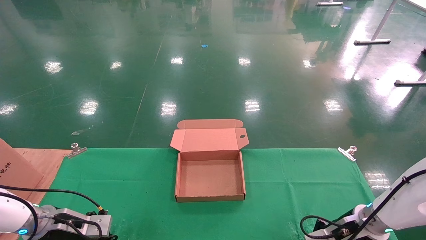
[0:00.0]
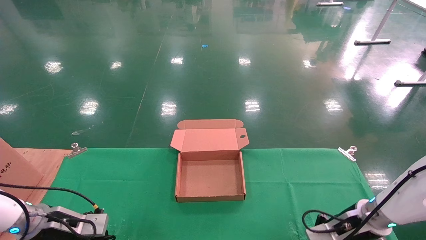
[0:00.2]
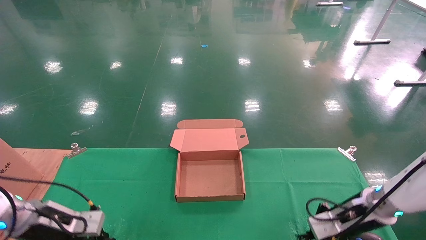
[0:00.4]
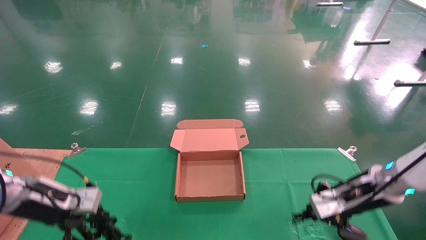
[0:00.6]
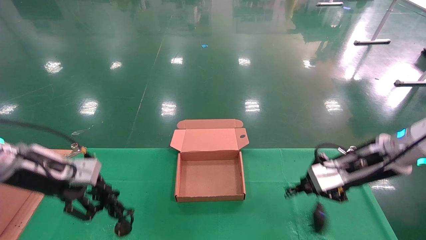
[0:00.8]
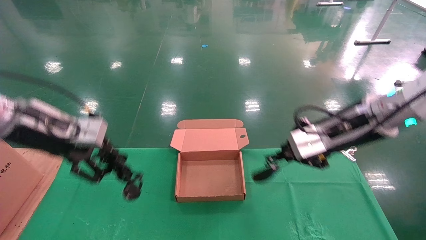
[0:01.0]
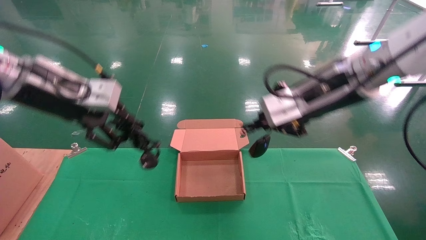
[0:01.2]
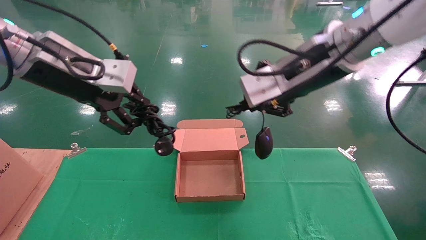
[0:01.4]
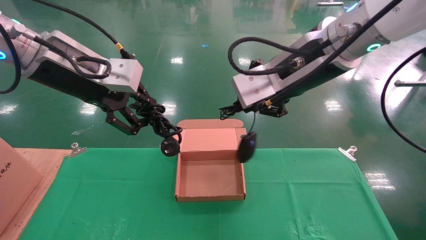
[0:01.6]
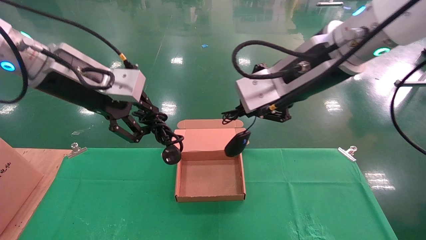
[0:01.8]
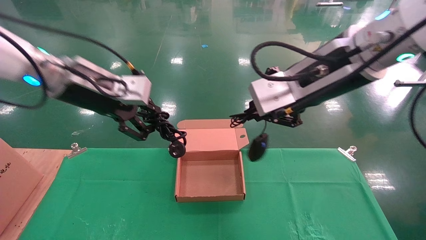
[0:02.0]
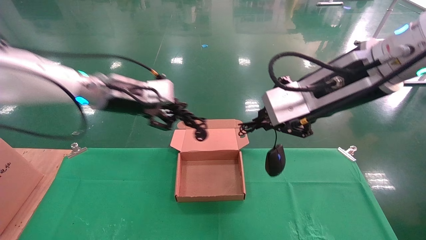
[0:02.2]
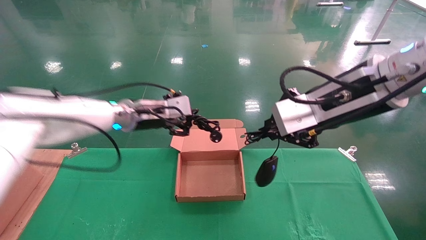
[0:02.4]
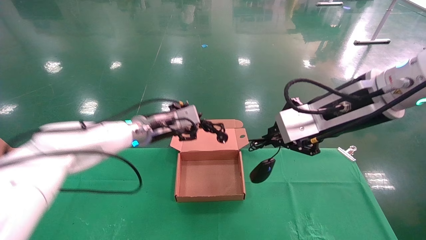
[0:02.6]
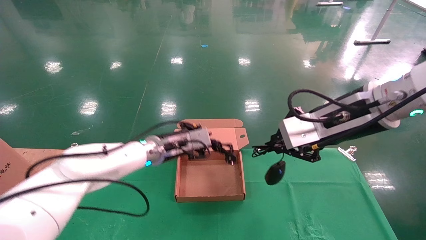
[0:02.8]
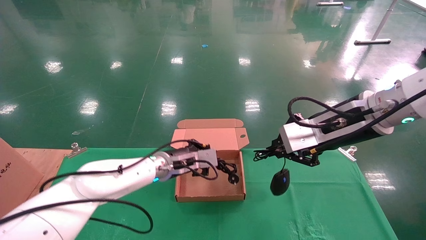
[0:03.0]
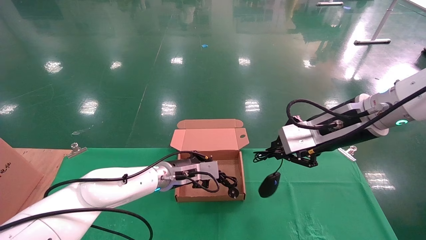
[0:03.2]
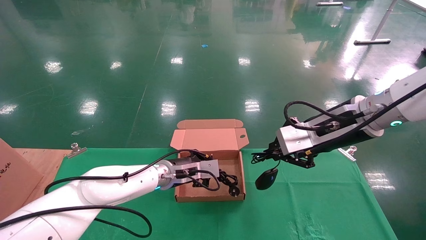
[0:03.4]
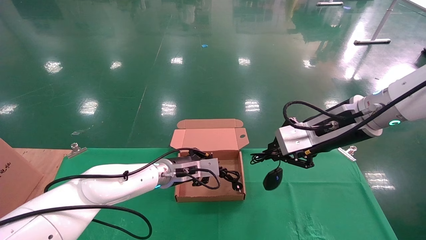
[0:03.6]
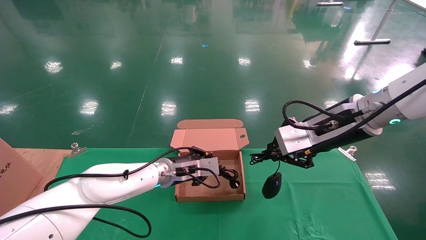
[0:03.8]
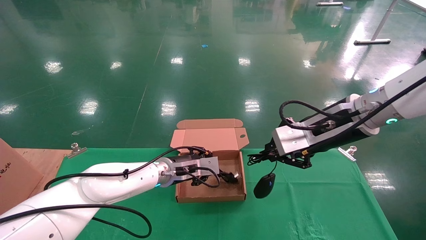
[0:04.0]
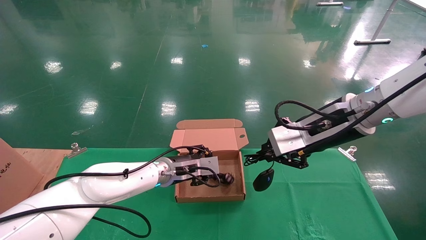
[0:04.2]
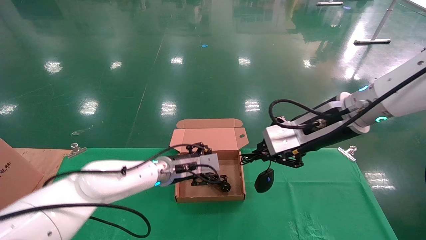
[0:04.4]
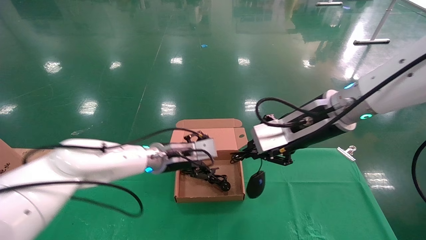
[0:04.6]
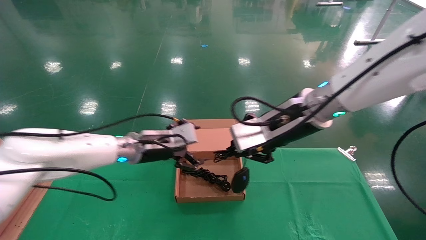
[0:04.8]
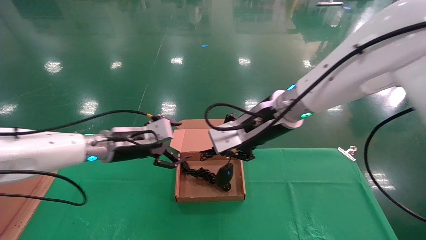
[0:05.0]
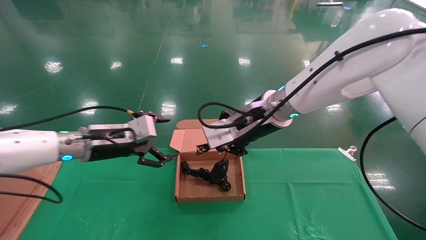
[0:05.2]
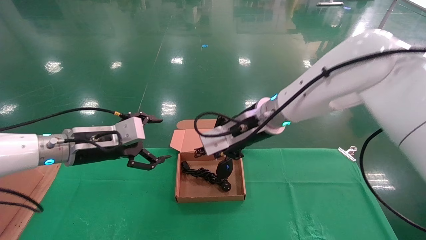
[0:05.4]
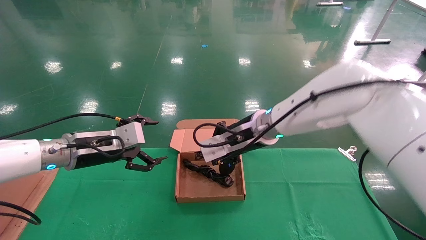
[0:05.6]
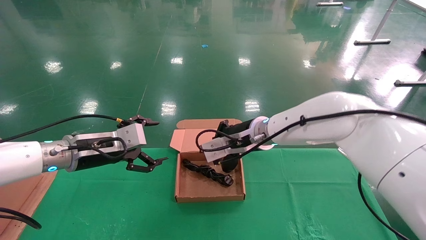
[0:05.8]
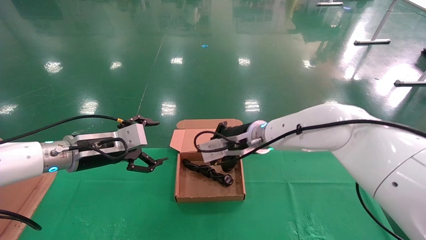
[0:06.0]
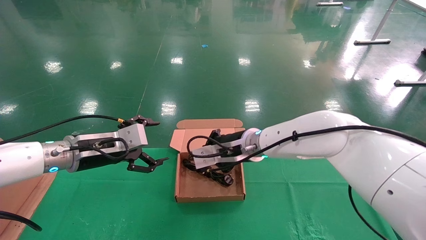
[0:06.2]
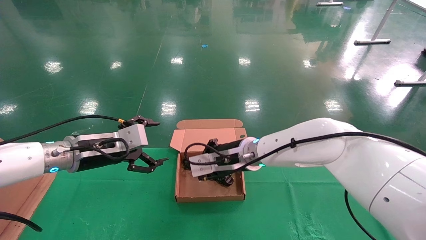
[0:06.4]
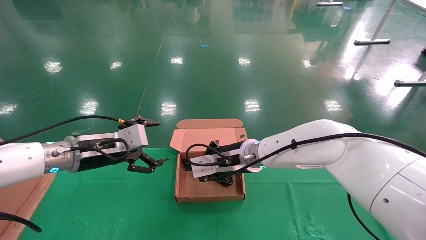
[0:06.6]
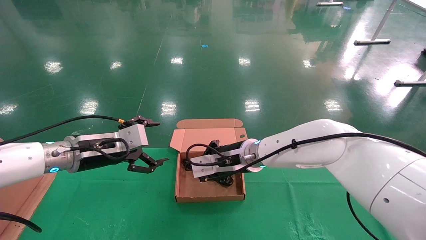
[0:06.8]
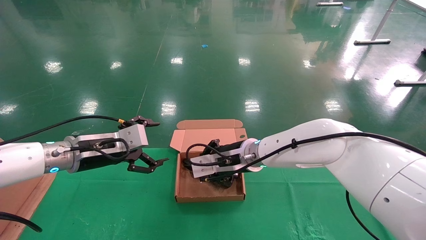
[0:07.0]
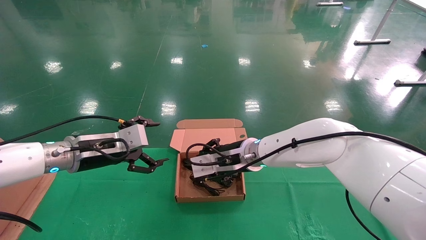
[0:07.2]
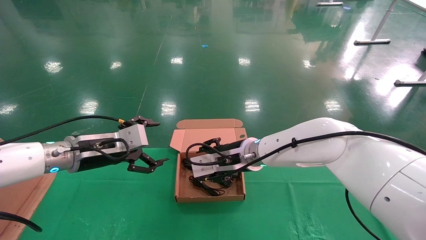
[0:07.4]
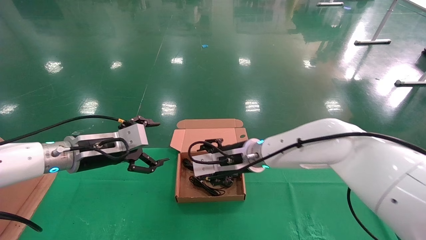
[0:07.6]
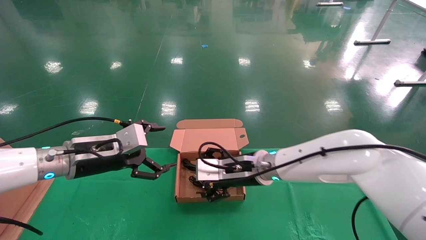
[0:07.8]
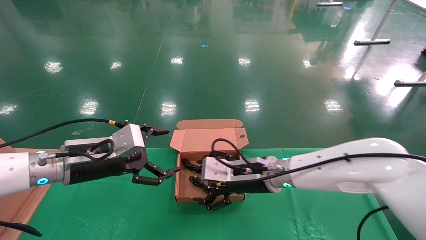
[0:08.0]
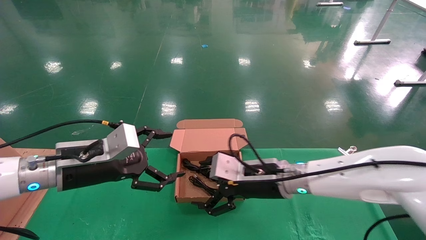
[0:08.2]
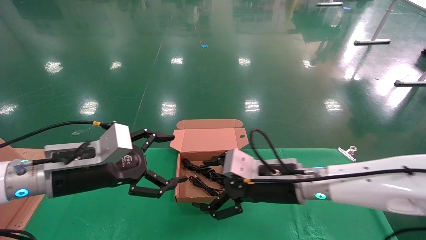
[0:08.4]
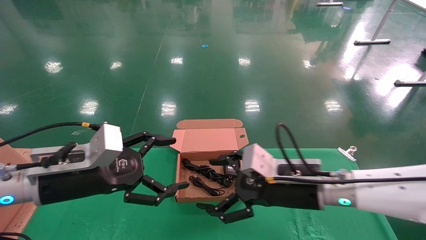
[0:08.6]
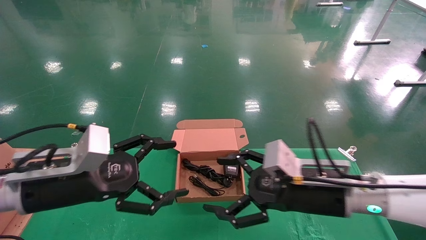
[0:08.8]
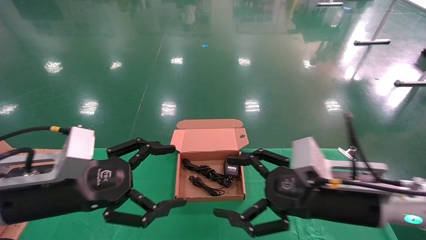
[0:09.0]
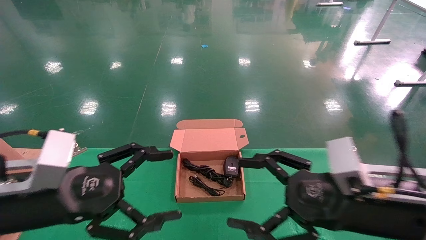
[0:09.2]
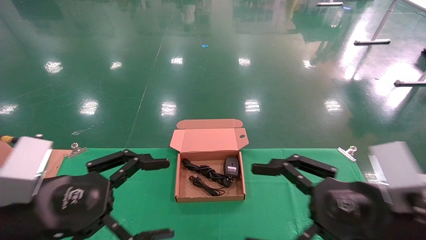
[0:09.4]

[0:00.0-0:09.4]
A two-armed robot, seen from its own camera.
Step, 0:00.6 to 0:05.4: Place the mouse and power cord into the box.
0:00.0 to 0:01.6: The left gripper moves upward, roughly 35 cm. The right gripper moves upward and to the left, approximately 40 cm.
0:01.6 to 0:03.2: The right gripper goes roughly 15 cm downward and to the right. The left gripper goes about 35 cm downward, forward and to the right.
0:03.2 to 0:04.8: The left gripper moves upward and to the left, roughly 10 cm, and opens. Meanwhile the right gripper goes about 10 cm to the left.
0:04.8 to 0:06.2: The left gripper is displaced to the left and backward by approximately 10 cm. The right gripper moves downward, forward and to the left, roughly 15 cm.
0:06.2 to 0:07.8: The right gripper moves about 5 cm, and opens.
0:07.8 to 0:09.4: The right gripper goes about 25 cm backward and to the right, while the left gripper shifts approximately 15 cm backward.
